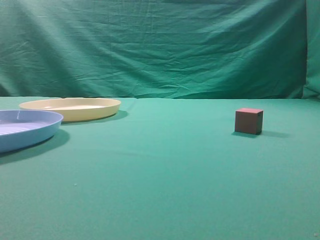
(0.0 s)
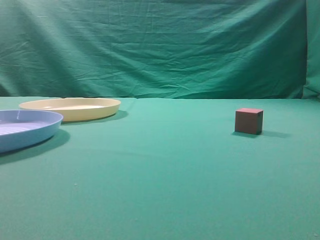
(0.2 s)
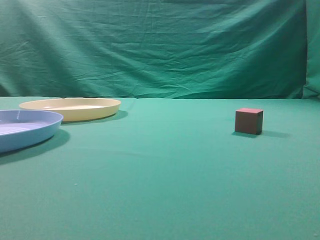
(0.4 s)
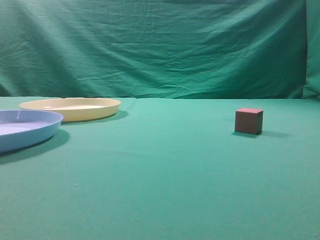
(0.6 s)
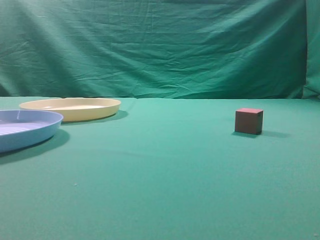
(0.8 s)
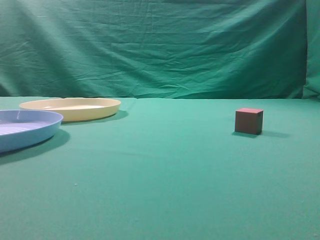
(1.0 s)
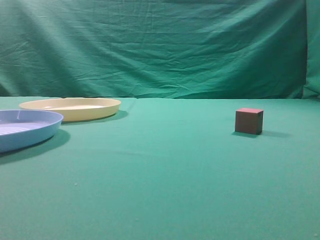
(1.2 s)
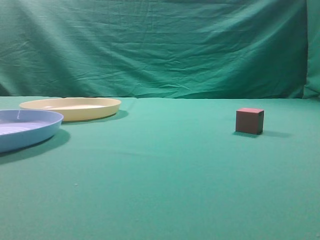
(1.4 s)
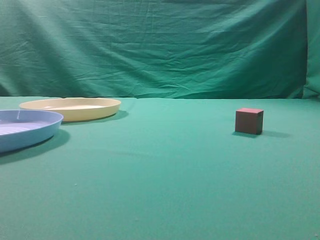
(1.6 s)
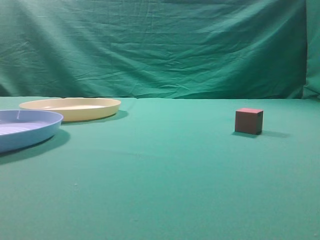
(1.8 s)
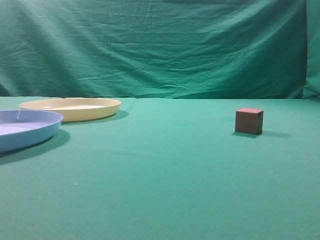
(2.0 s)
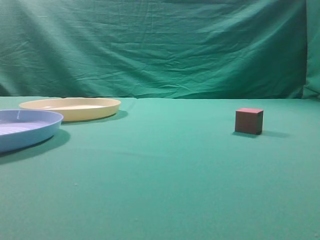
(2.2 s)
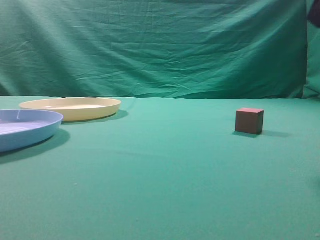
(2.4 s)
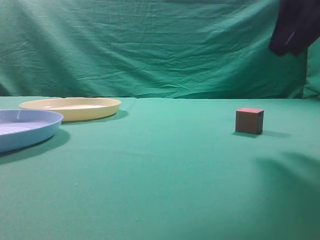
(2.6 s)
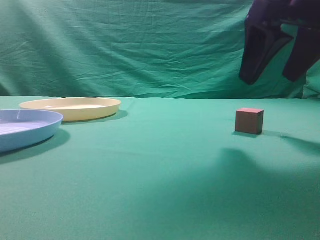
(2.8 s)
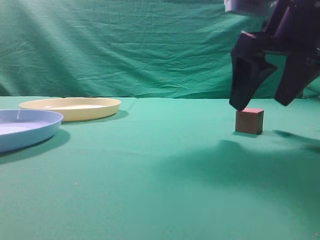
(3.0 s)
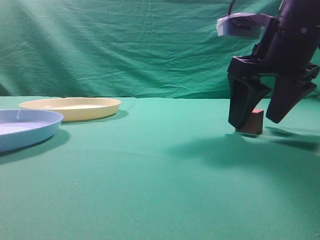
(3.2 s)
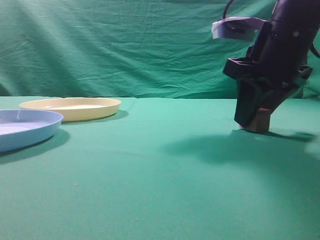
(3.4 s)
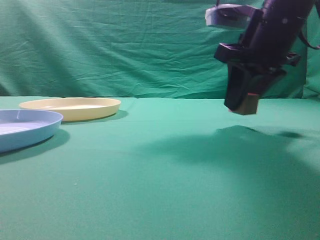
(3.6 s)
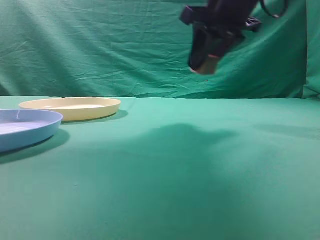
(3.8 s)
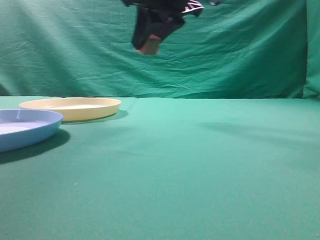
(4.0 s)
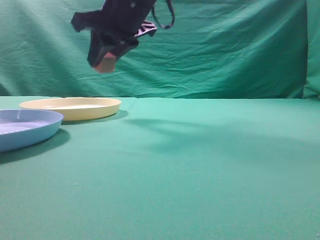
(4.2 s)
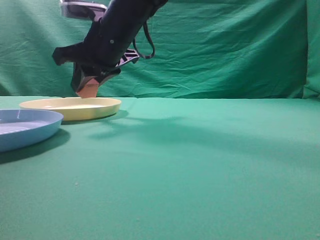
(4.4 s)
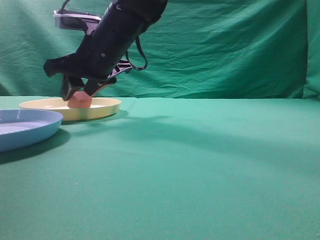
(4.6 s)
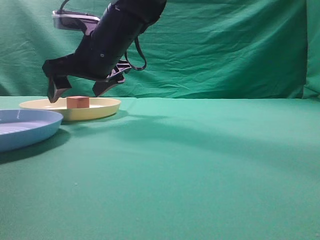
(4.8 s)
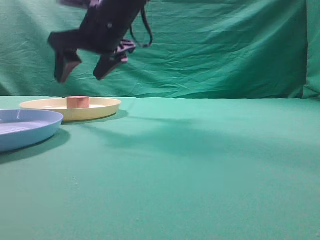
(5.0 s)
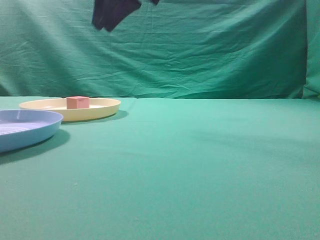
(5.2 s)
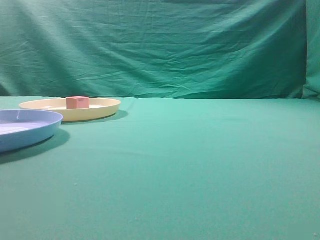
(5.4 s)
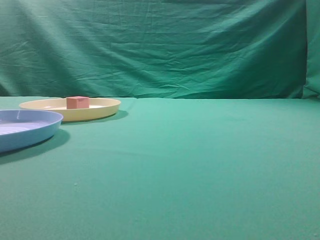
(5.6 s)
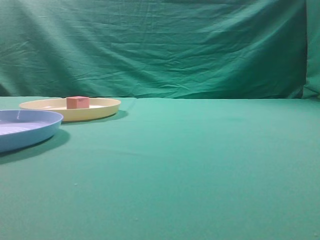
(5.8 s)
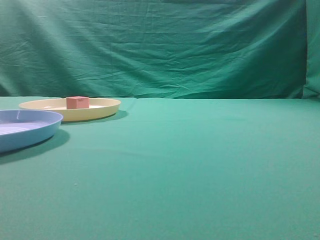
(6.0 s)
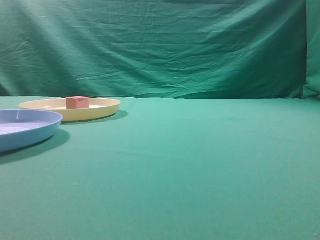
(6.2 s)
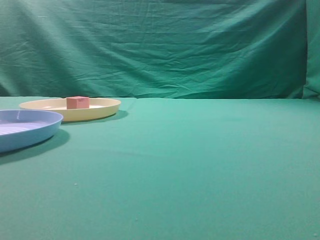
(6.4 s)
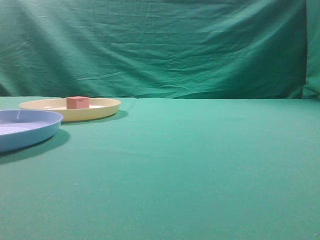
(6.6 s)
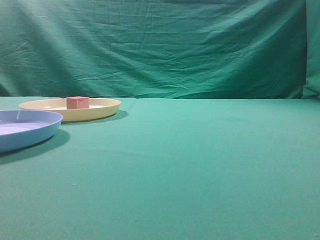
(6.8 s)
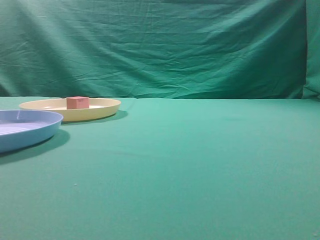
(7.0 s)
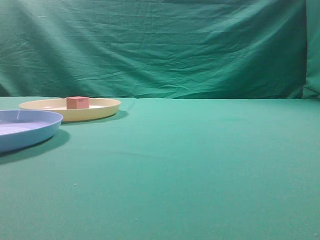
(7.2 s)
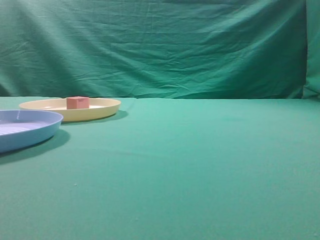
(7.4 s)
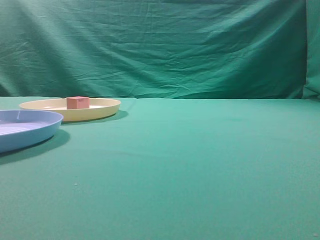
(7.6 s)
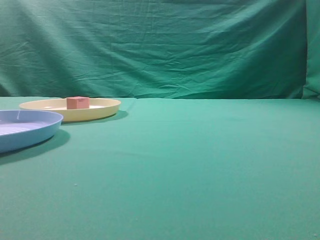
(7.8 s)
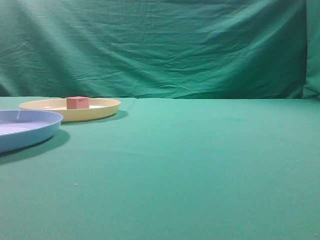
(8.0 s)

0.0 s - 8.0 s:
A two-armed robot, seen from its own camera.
Task of the whole recording: pick up the cube block from the table and put it on the plate.
Step, 0.0 s - 3.6 s: Grasp the small cube on the table.
Step, 3.8 s - 5.0 s: Place it into the yellow plate.
1.6 s - 3.2 s: The right gripper moves forward and to the left, some 30 cm, and opens its fingers.
3.2 s - 4.8 s: The right gripper heads to the left, covering about 25 cm, and closes, then opens again.
4.8 s - 6.4 s: The right gripper moves to the right, backward and upward, roughly 50 cm, and closes.
